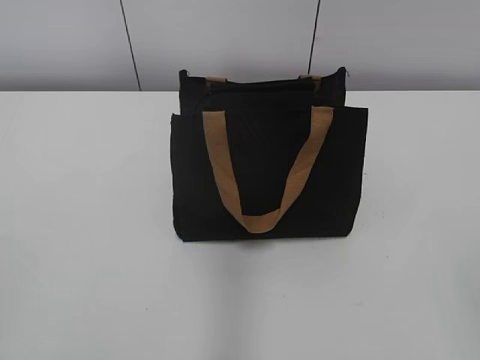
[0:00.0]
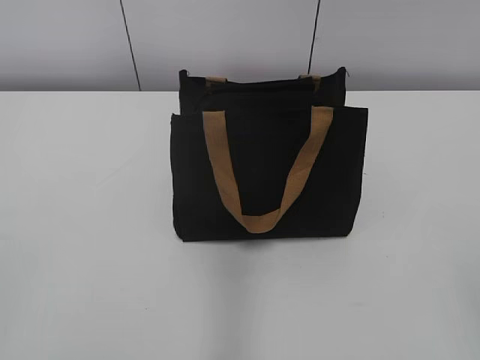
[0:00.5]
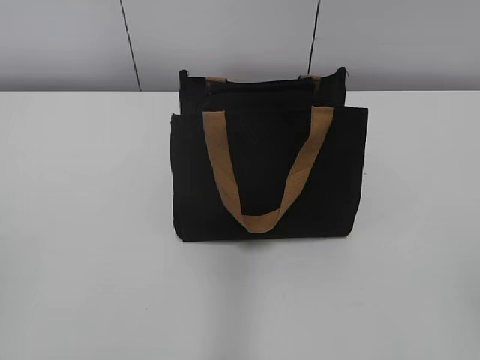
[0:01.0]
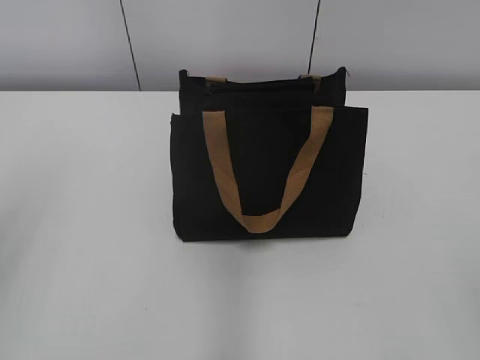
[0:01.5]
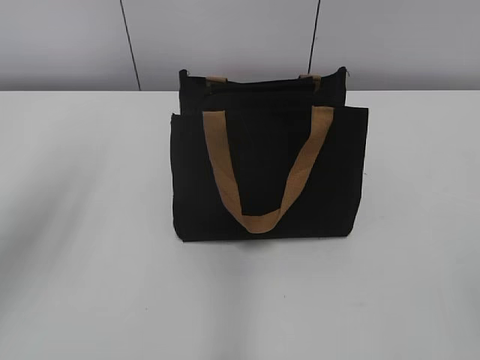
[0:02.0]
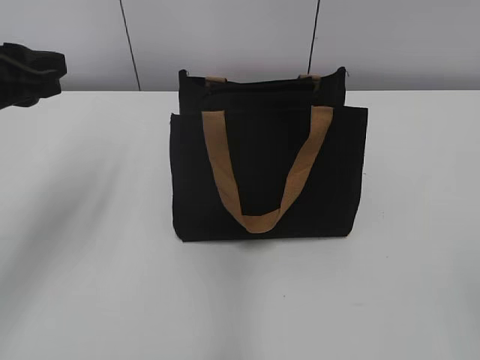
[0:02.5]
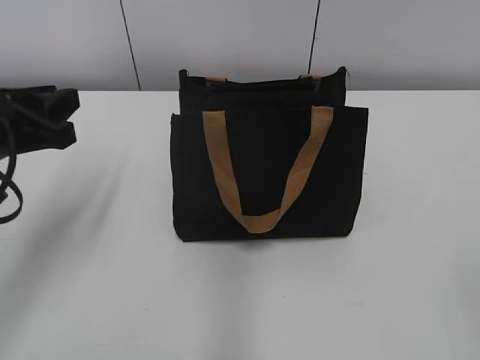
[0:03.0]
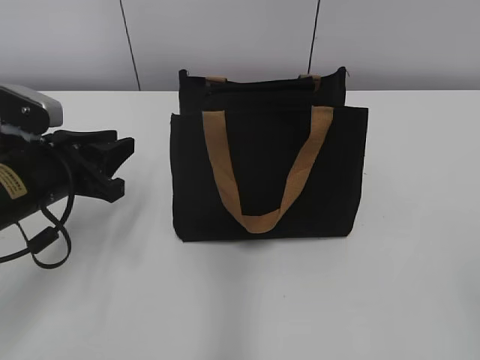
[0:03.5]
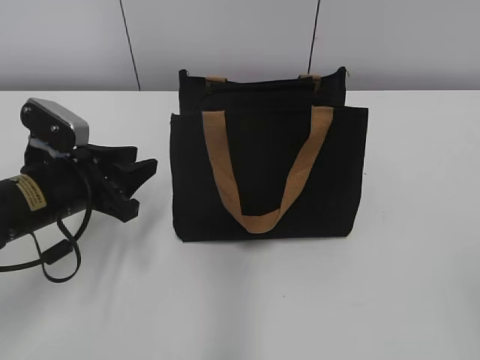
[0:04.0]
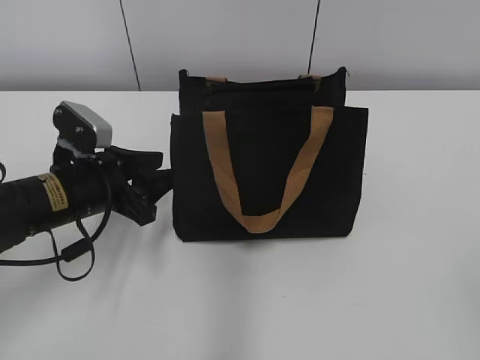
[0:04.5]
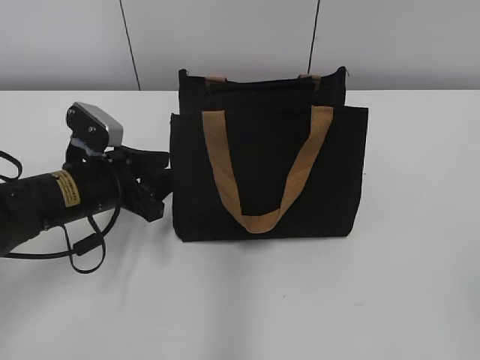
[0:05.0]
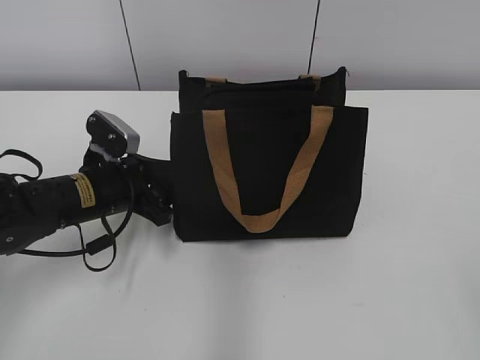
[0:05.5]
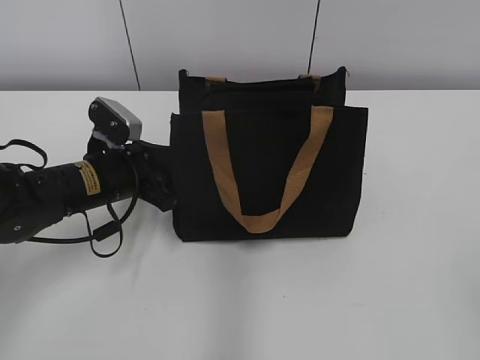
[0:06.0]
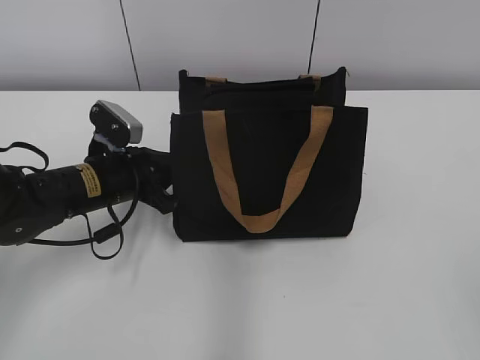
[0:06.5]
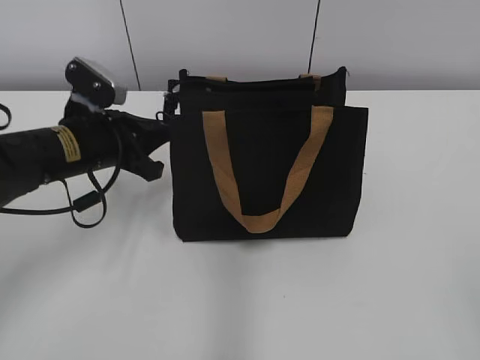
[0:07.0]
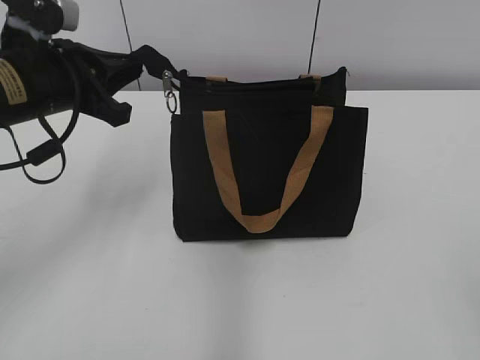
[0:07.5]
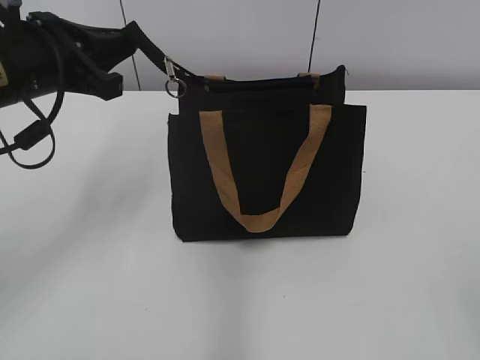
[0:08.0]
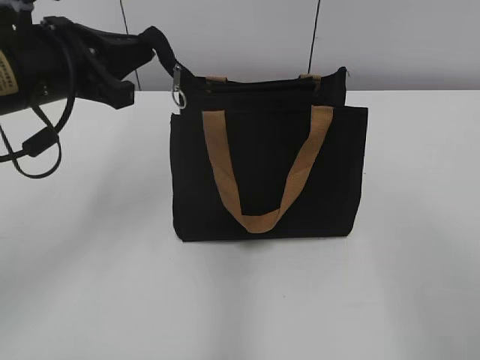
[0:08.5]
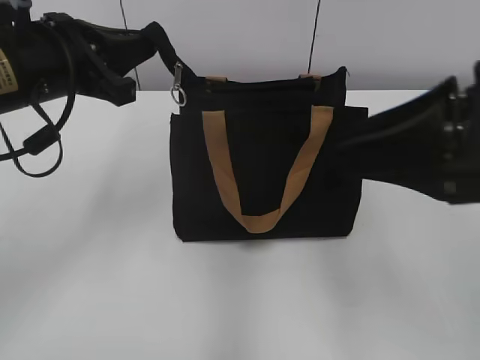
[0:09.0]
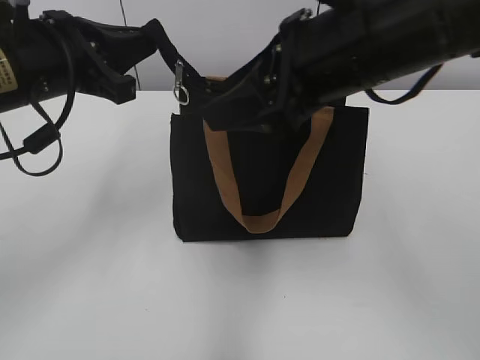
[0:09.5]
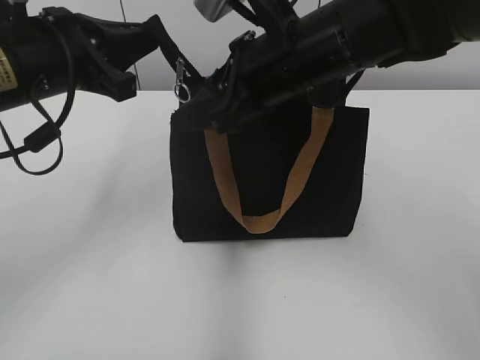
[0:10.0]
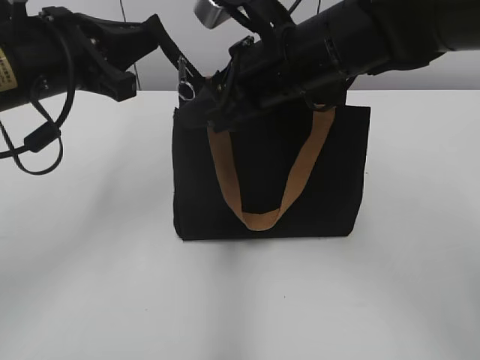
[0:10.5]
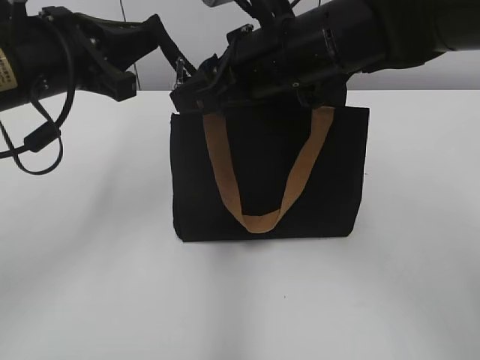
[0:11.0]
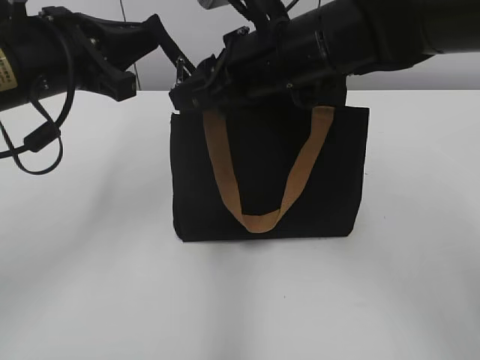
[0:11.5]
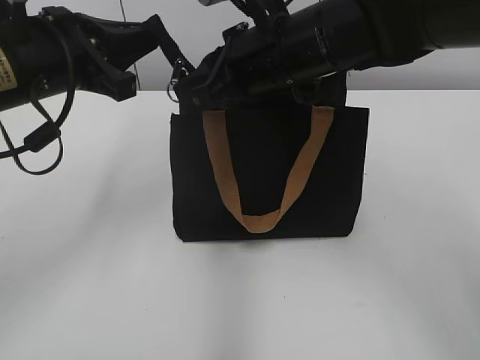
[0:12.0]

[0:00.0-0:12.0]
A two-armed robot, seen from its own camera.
0:02.0 to 0:04.0: The left gripper moves downward, approximately 20 cm.
0:04.0 to 0:06.0: The left gripper shifts approximately 5 cm forward.
0:06.0 to 0:08.0: The left gripper goes some 15 cm upward, and closes up.
0:08.0 to 0:10.0: The right gripper moves forward and to the left, about 40 cm.
0:10.0 to 0:12.0: The right gripper closes.

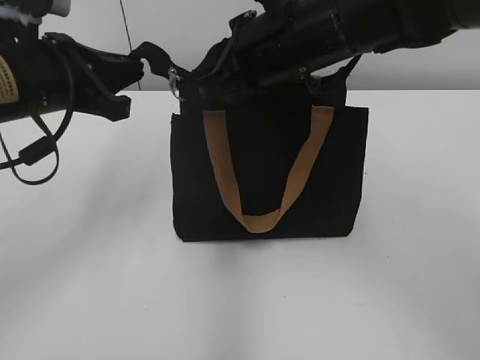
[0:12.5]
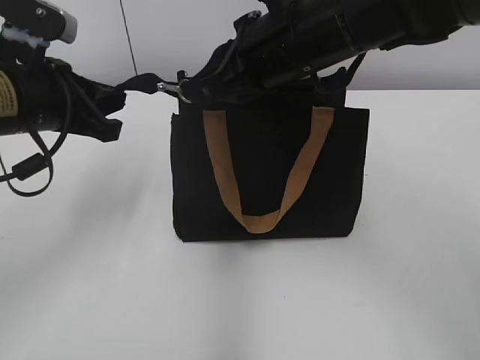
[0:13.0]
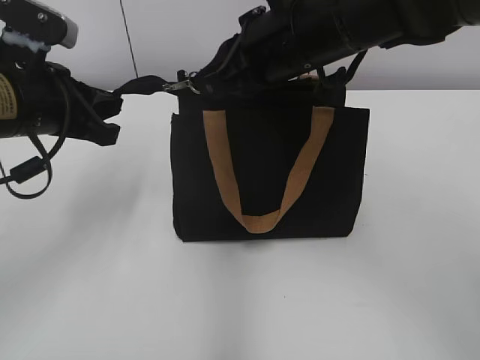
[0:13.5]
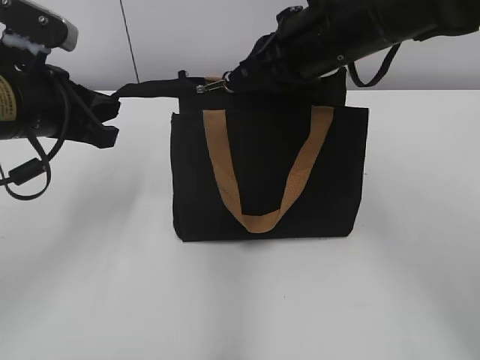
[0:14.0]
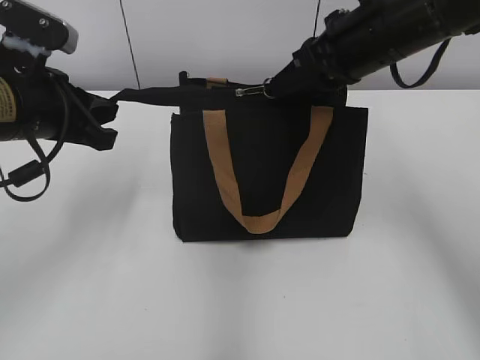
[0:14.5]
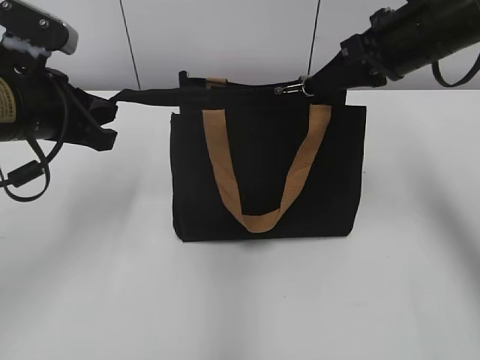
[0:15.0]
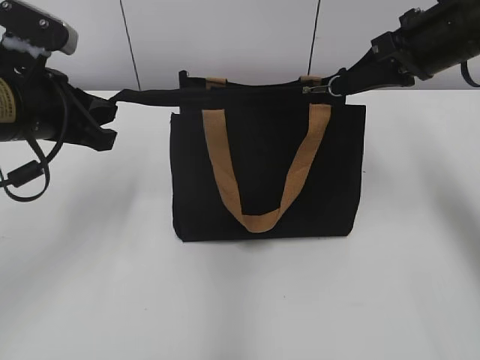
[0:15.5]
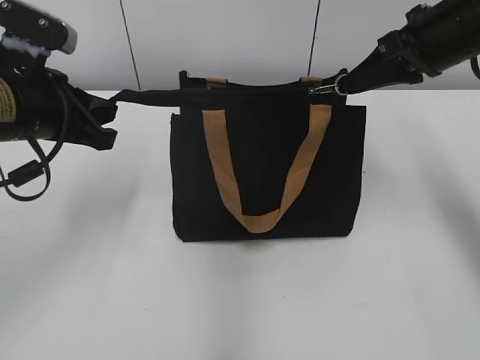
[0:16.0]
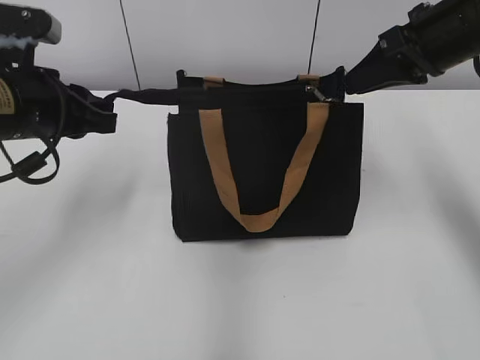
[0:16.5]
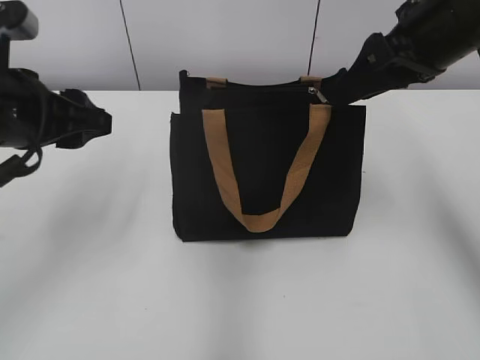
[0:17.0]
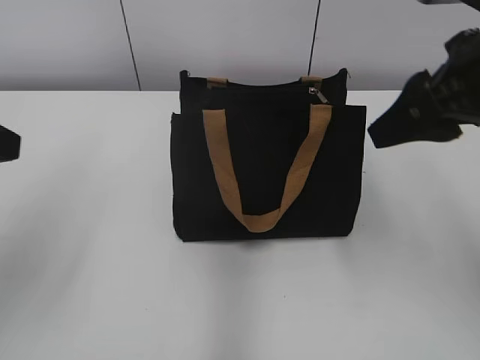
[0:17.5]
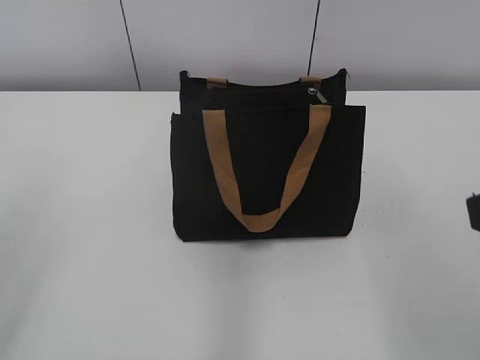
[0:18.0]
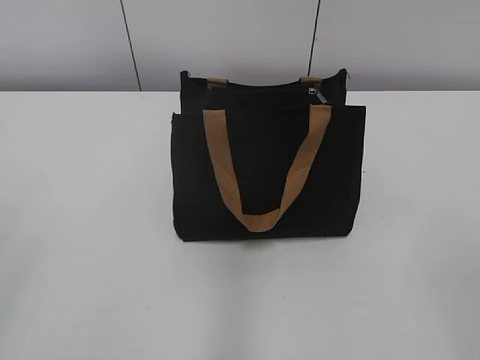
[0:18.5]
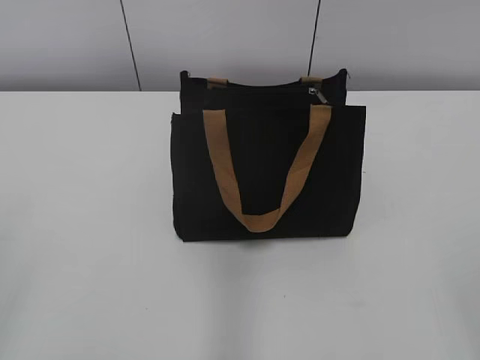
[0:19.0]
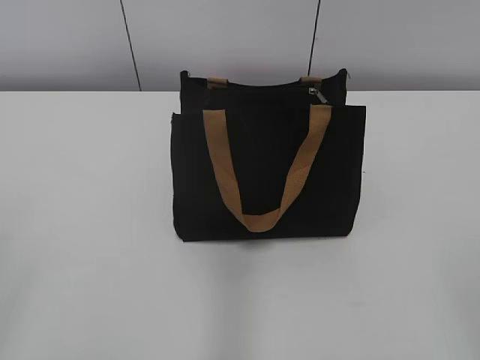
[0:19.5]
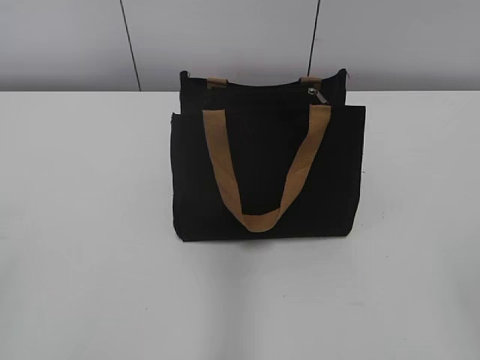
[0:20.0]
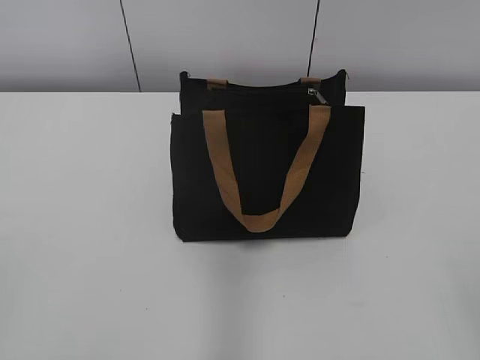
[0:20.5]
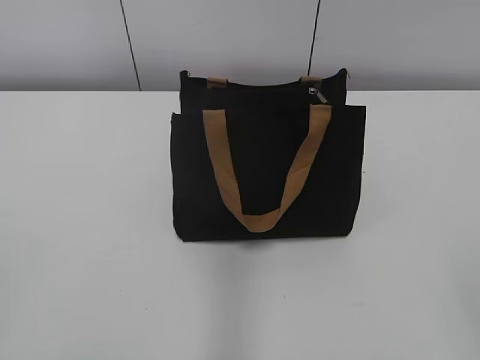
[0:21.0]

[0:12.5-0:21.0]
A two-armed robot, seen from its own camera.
Step, 0:12.5 to 0:16.5: Zip up the bag with your right hand.
0:12.5 to 0:14.5: The right gripper travels to the right by some 10 cm.
0:14.5 to 0:16.5: The right gripper moves to the right, approximately 10 cm.
0:16.5 to 0:19.0: The two grippers go about 30 cm backward. The left gripper opens its fingers. Meanwhile the right gripper opens.

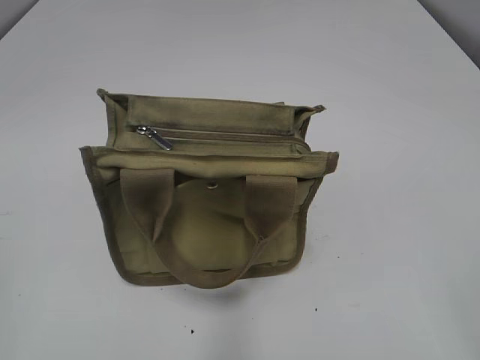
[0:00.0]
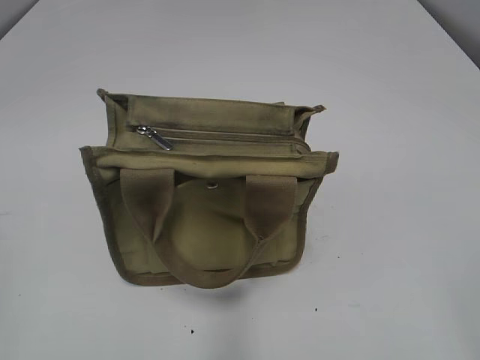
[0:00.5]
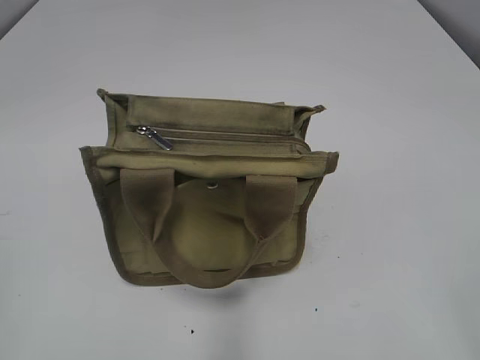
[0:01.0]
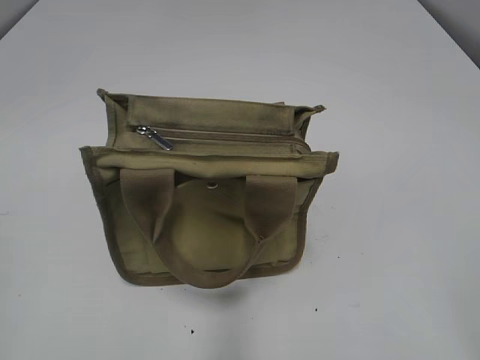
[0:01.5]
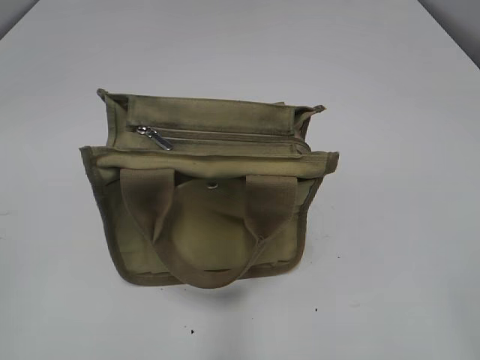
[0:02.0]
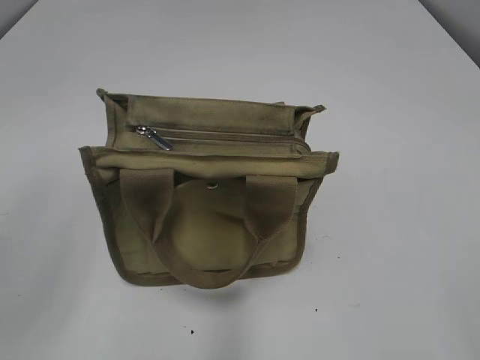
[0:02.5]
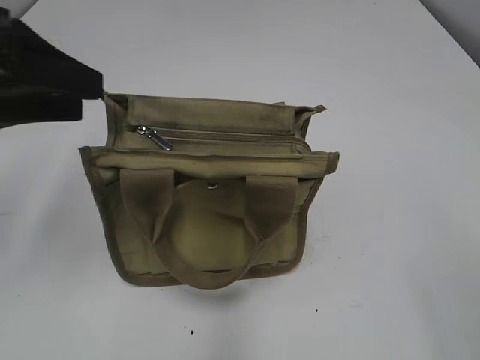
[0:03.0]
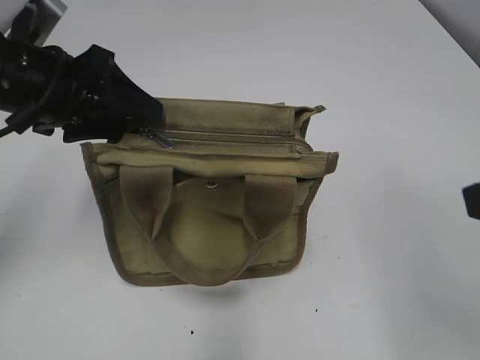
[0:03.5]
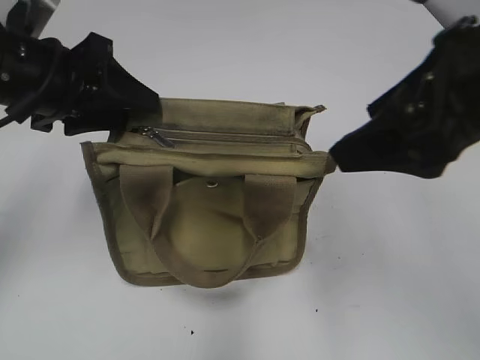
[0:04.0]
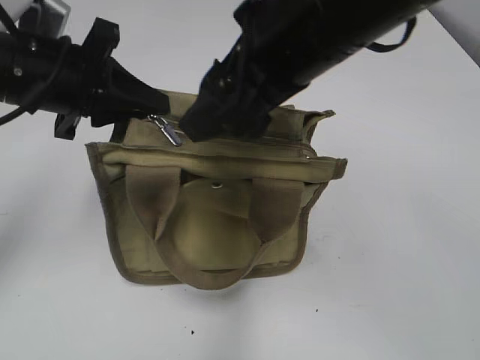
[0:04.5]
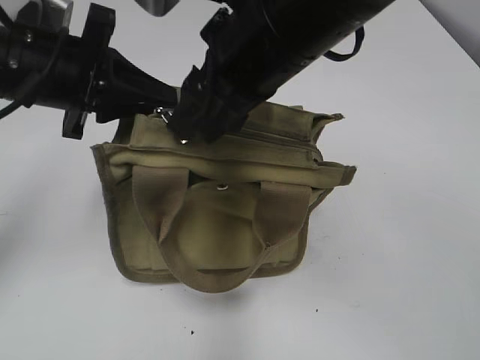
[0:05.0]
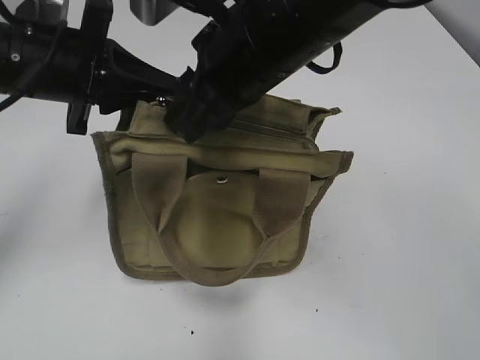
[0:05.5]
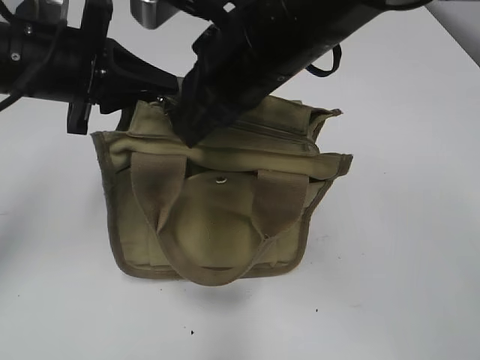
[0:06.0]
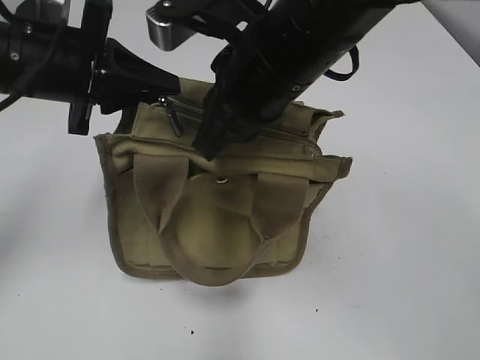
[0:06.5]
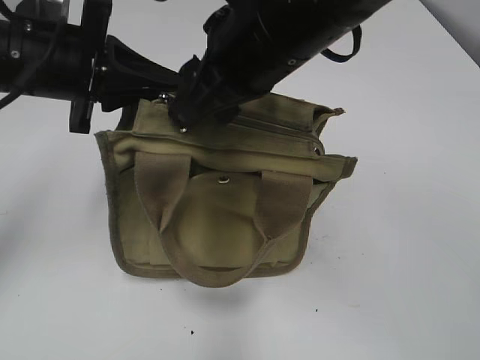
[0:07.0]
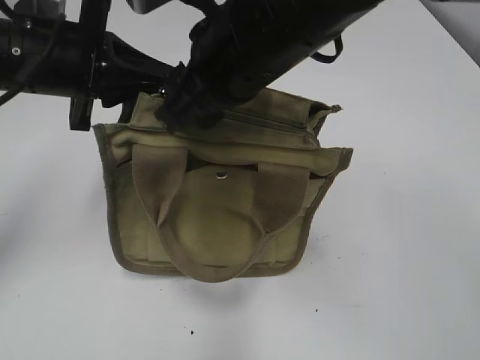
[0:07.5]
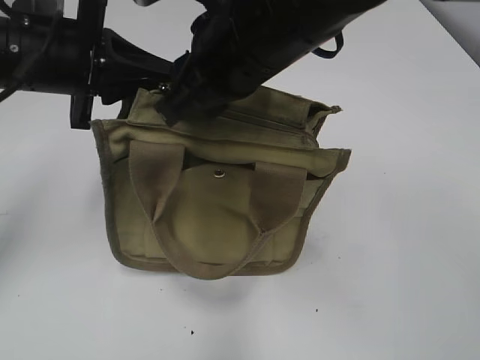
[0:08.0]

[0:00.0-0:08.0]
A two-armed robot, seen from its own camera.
0:02.0 to 0:04.0: The right gripper travels forward and to the left by some 25 cm, while the left gripper moves forward and to the right, roughly 30 cm.
0:04.0 to 0:06.0: The right gripper shifts some 15 cm to the left and forward, and closes. The left gripper closes.
0:06.0 to 0:08.0: The right gripper opens.
